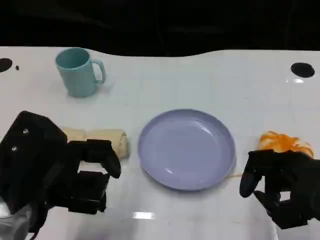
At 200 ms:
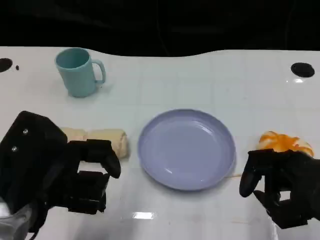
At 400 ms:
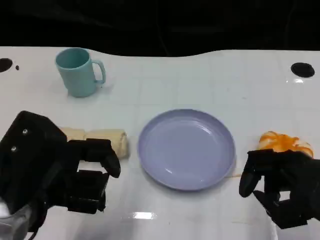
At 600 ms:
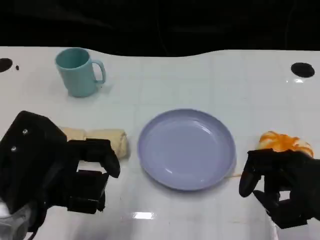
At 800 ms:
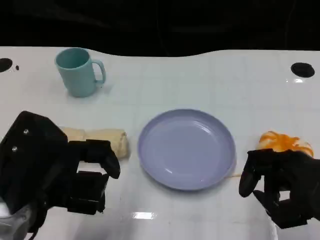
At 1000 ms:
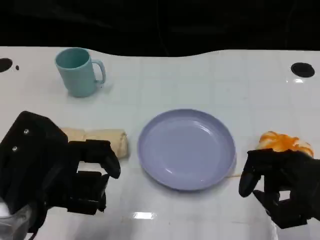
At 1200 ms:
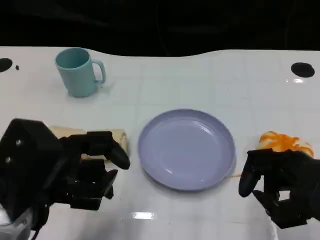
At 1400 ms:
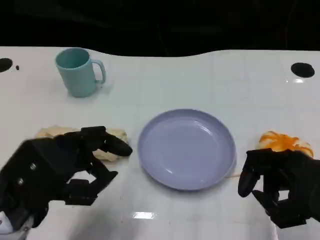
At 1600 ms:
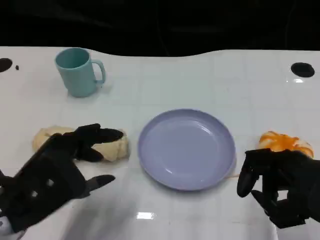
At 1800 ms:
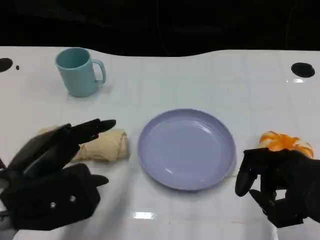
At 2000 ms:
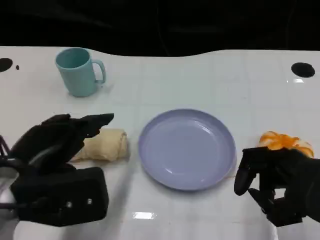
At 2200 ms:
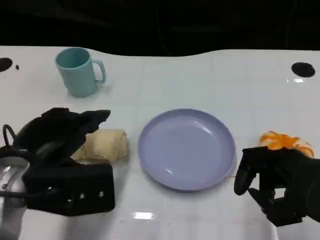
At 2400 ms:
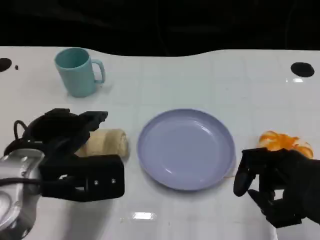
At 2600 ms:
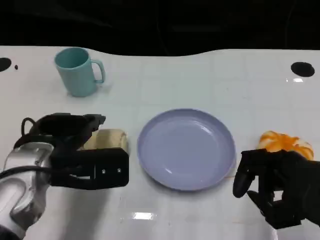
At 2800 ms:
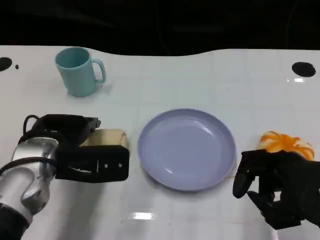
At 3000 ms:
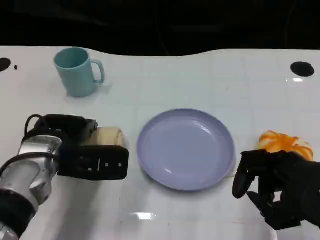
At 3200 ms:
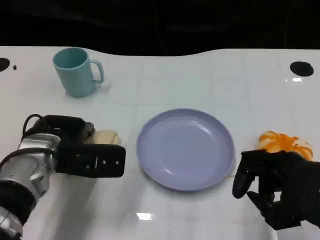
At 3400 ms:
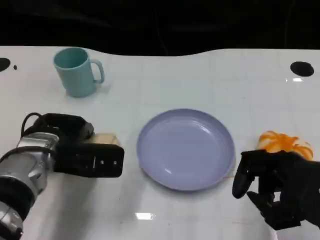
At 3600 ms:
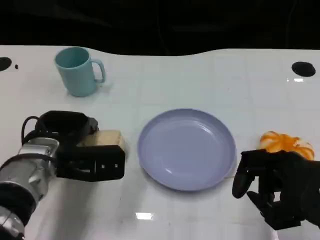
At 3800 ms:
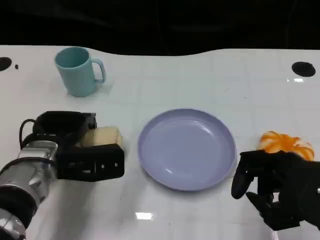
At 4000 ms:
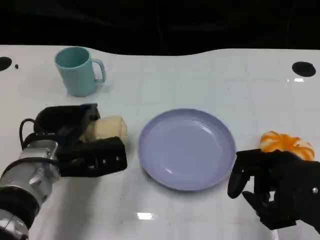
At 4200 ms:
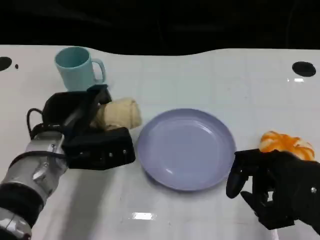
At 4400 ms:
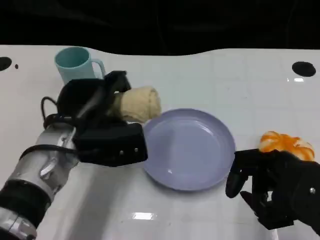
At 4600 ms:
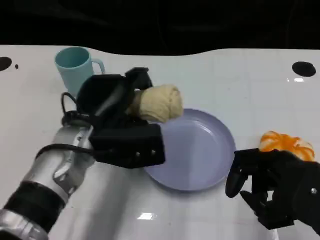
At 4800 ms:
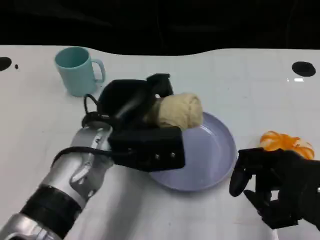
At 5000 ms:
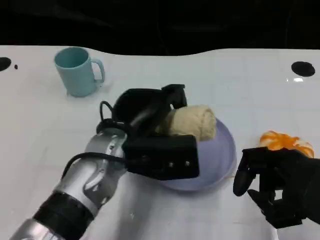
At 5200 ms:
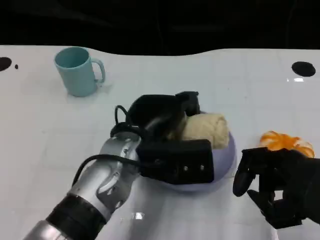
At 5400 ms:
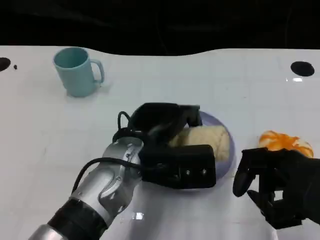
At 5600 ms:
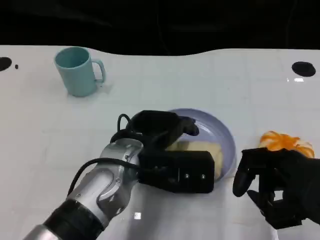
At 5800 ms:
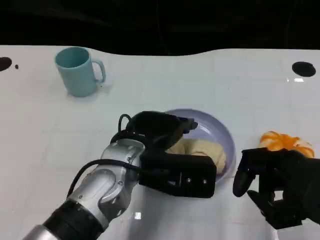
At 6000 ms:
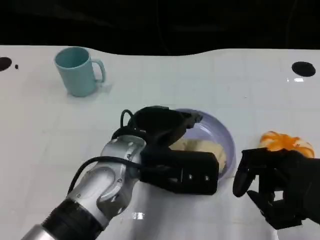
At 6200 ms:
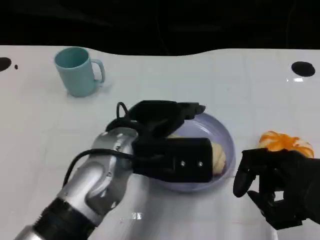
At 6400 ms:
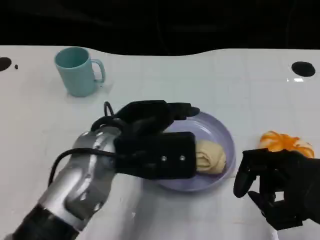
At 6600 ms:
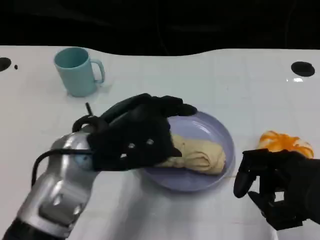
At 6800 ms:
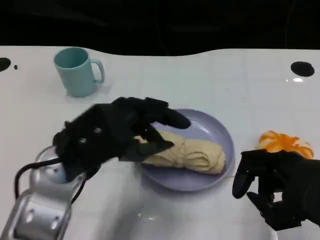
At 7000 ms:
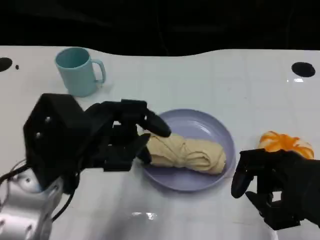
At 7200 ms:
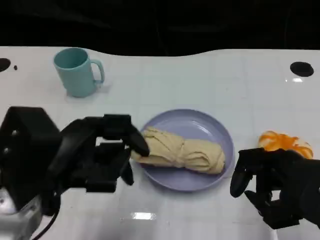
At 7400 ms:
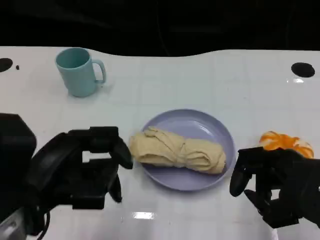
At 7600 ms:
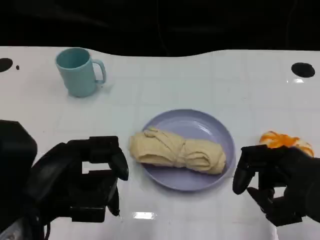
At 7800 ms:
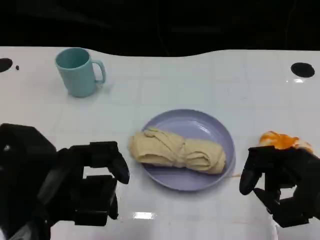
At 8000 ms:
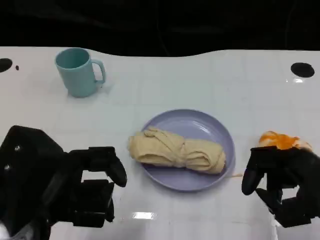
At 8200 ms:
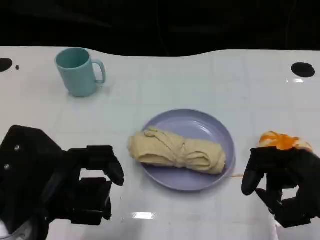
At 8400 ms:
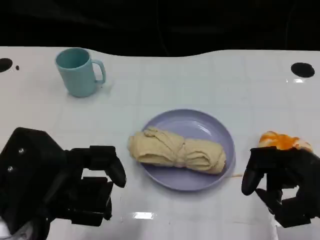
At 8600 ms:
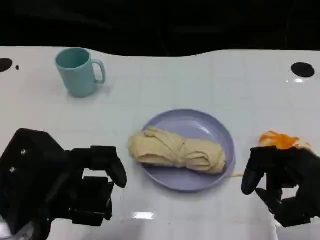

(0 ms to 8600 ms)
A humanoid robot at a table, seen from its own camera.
Task of the whole recording: Grasp the towel on the left side of the plate with the left hand and place it into the plate.
1400 ms - 2800 ms: The left hand is displaced forward by roughly 10 cm.
4400 ms - 5800 ms: The left hand moves to the right, approximately 10 cm.
5800 ms - 7200 ms: The left hand is displaced to the left and backward by approximately 15 cm.
7200 ms - 8600 ms: The hands make only small movements.

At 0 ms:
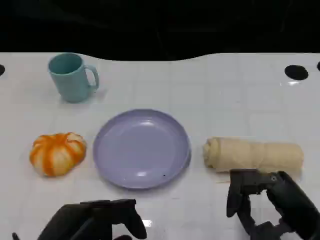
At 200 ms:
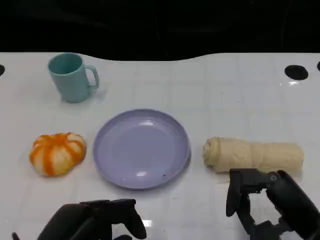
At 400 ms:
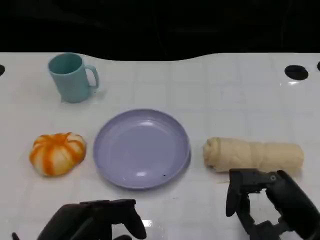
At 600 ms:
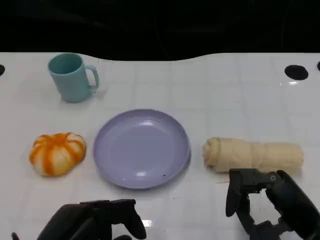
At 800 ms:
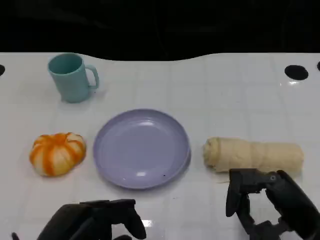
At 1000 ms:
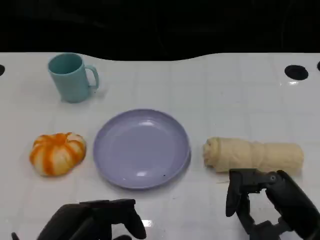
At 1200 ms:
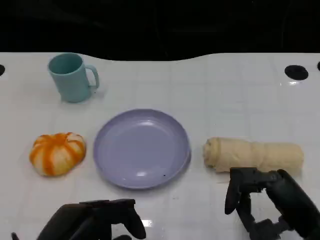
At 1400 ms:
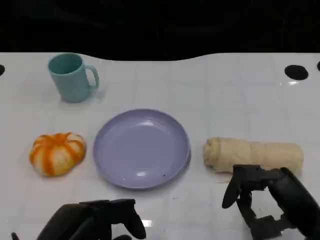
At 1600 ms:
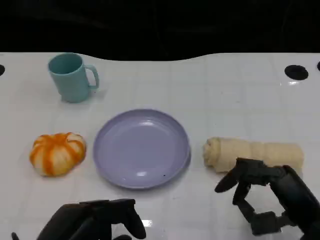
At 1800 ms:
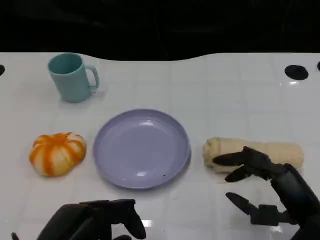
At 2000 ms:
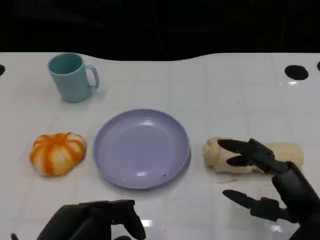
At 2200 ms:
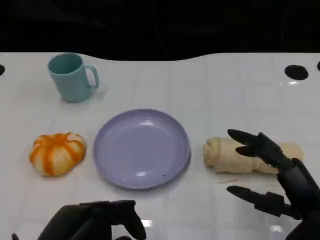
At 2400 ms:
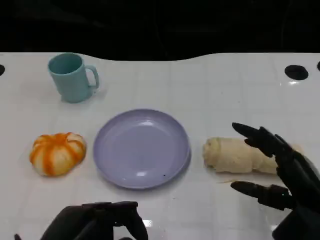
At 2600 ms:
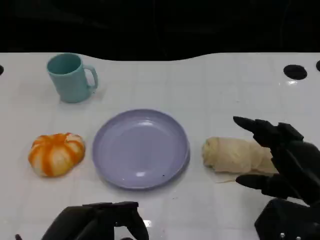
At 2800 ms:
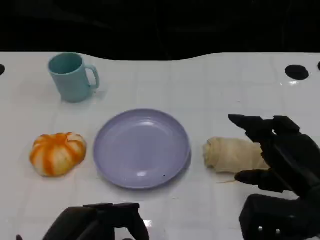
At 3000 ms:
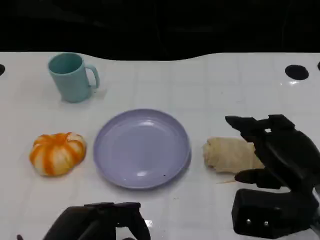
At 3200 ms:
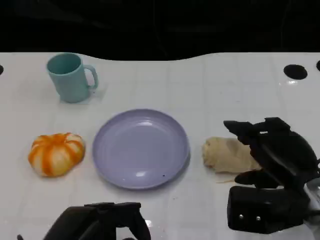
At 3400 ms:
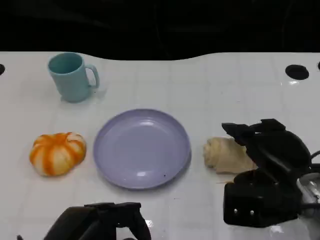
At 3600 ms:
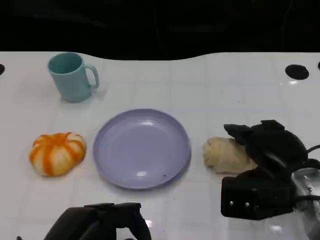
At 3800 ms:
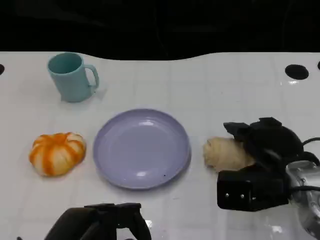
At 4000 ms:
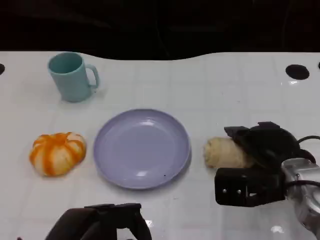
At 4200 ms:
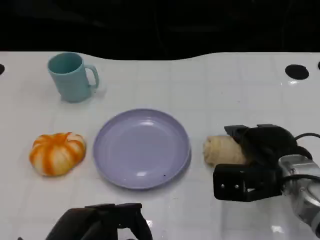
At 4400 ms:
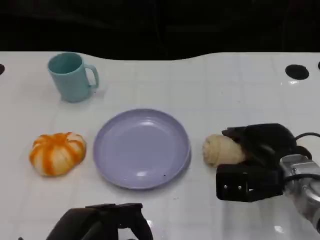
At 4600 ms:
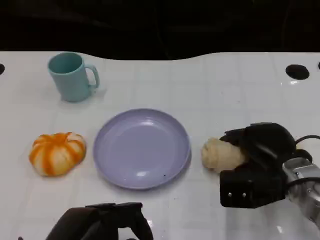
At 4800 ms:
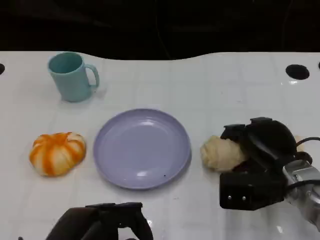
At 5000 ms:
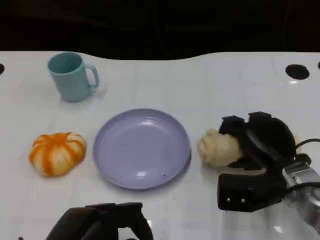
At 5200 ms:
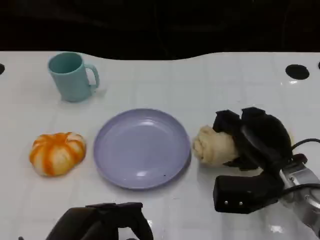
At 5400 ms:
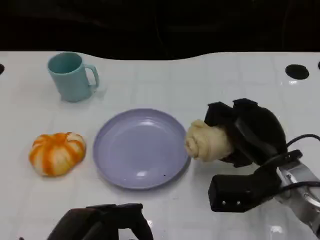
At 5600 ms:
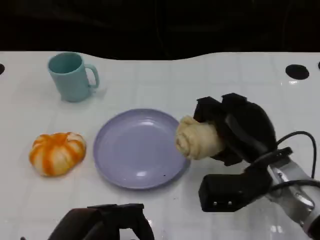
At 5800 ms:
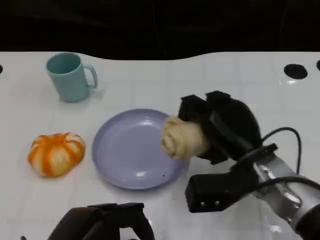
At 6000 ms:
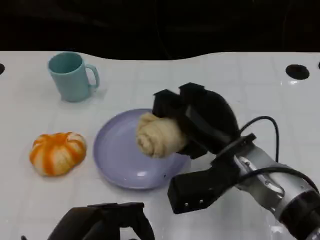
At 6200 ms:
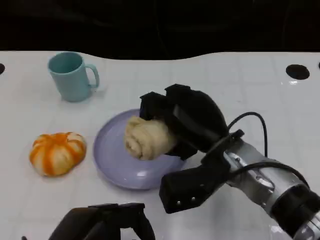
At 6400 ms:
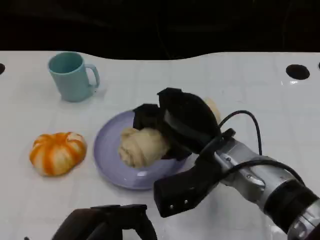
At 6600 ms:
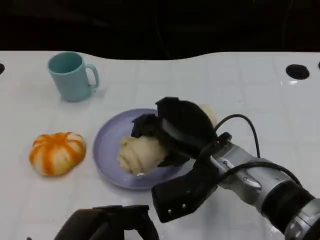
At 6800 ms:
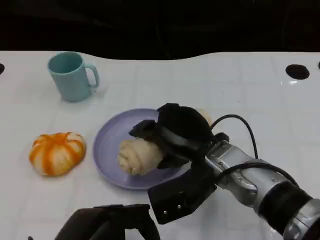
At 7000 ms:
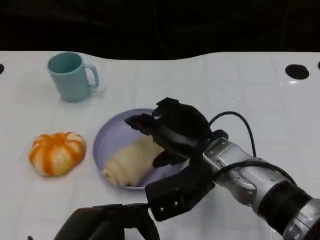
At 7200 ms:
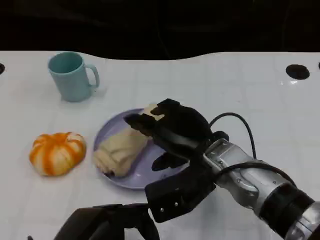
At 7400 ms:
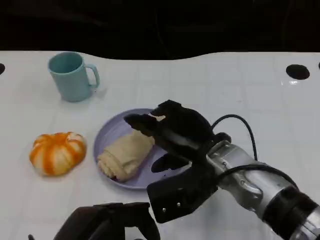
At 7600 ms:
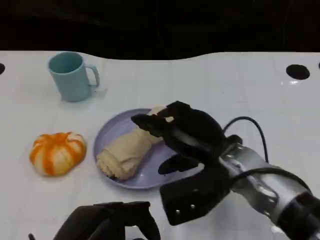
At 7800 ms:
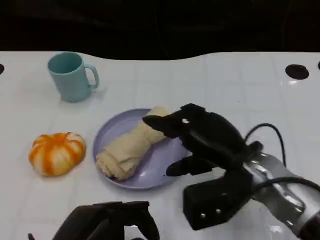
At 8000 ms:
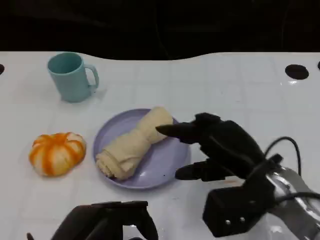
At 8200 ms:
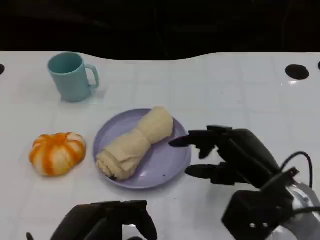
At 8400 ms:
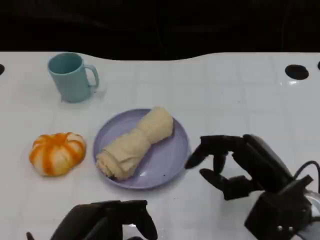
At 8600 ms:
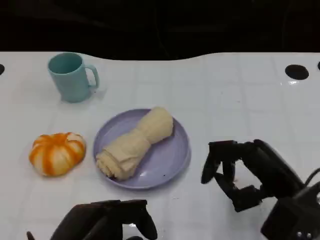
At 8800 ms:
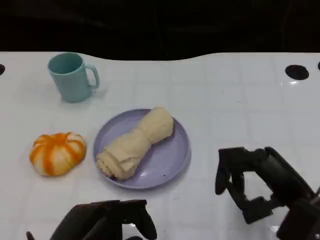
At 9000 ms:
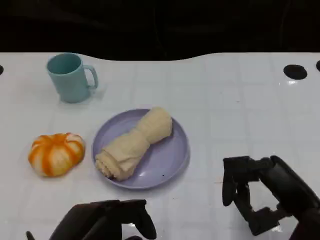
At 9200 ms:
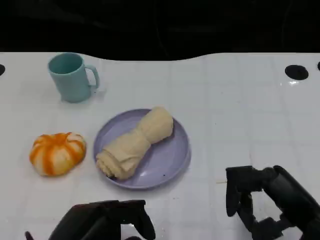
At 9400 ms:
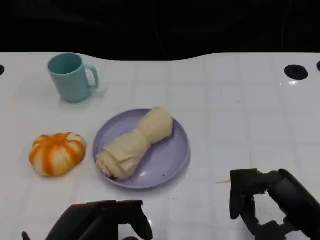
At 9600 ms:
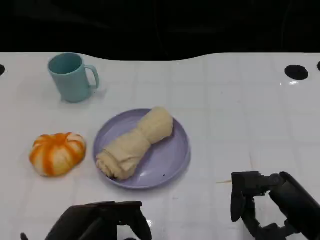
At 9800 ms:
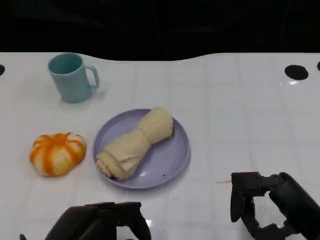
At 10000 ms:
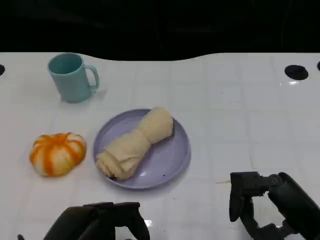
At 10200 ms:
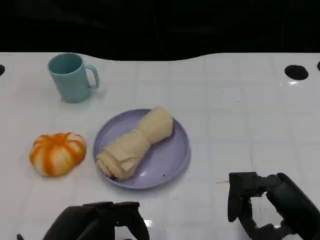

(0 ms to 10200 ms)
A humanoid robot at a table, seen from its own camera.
Task of the whole recording: Grasp the towel on the left side of the plate with the left hand and place it into the plate.
0 ms - 1400 ms: Both hands stay put.
1400 ms - 3000 ms: The right hand ends up approximately 5 cm from where it was.
3000 ms - 4400 ms: The right hand heads forward, covering approximately 5 cm.
4400 ms - 5800 ms: The right hand goes roughly 5 cm to the left.
5800 ms - 7200 ms: The right hand is displaced to the left by about 5 cm.
7200 ms - 8800 ms: The right hand moves to the right and backward, some 15 cm.
8800 ms - 10200 ms: There are only small adjustments of the hands.

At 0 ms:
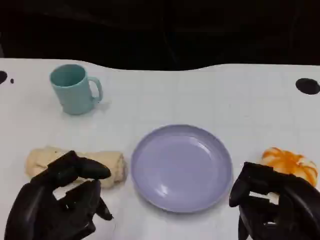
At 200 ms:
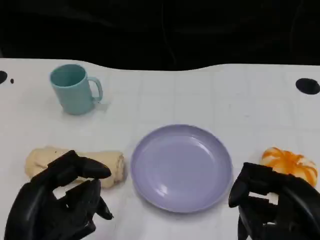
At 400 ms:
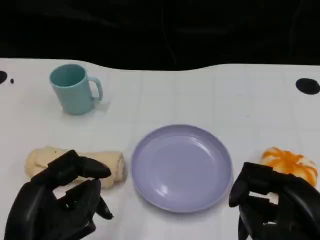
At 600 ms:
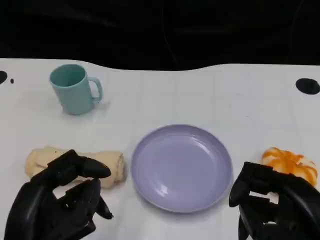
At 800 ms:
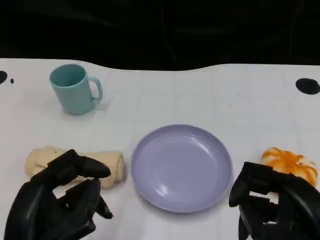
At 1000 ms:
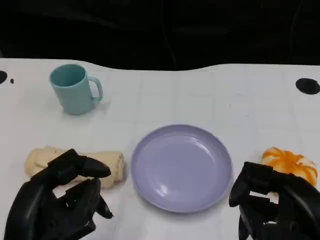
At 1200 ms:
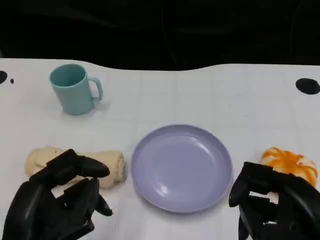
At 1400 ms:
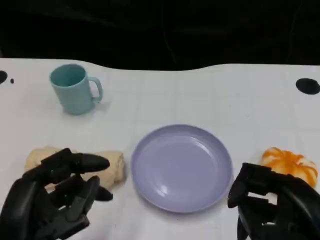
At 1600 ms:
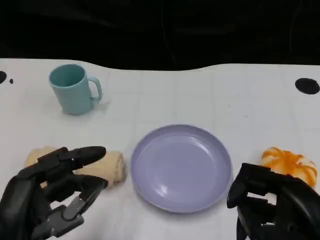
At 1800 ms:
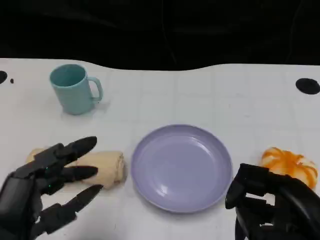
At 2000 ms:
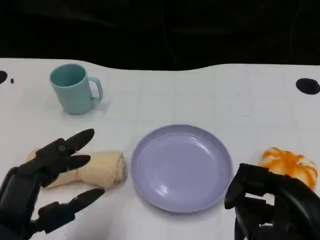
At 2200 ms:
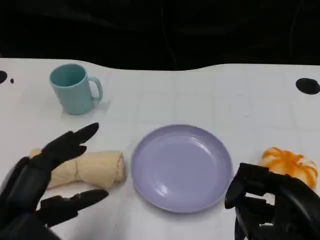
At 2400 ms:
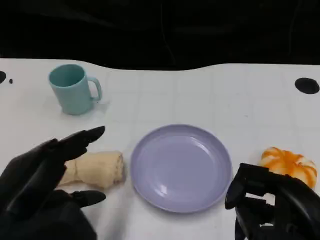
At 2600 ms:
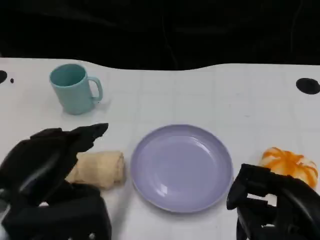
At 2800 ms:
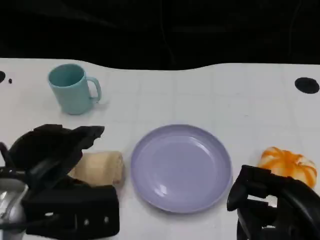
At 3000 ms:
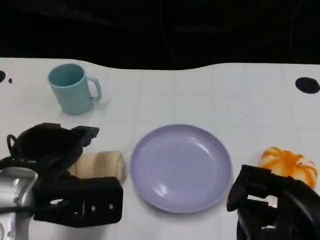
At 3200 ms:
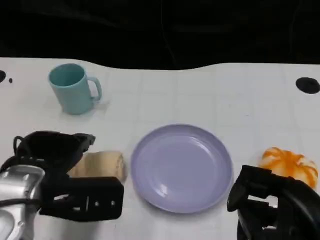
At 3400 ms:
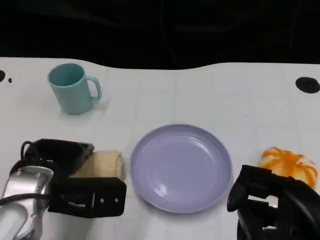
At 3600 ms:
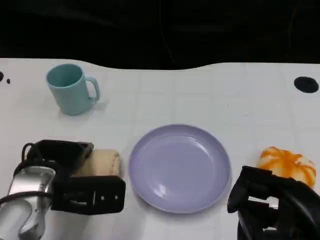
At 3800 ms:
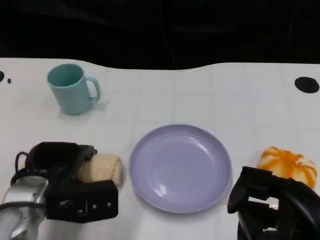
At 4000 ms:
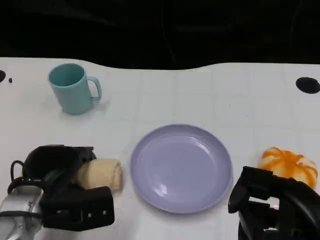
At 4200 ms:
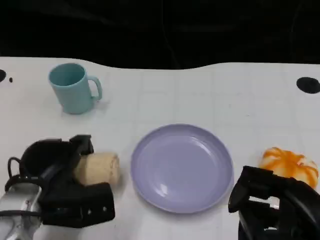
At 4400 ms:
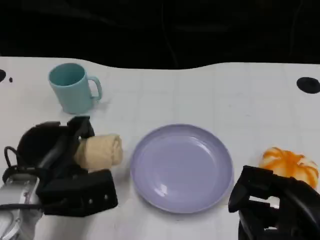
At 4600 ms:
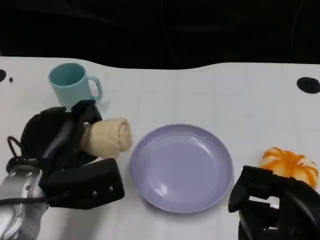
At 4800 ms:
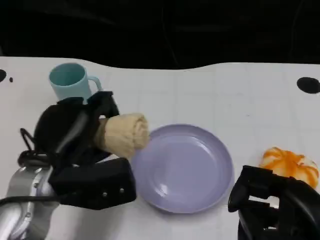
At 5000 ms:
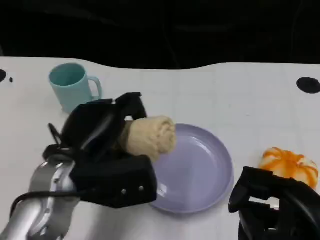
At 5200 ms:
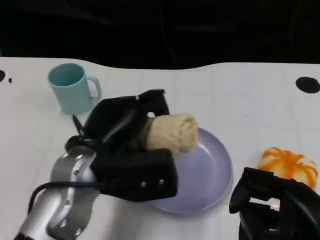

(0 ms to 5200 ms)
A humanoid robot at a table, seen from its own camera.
Task of the whole recording: Grasp the towel on the left side of the plate with the left hand and place it into the plate.
1800 ms - 3400 ms: The left hand shifts about 10 cm forward.
3400 ms - 5200 ms: The left hand moves to the right, some 5 cm.
